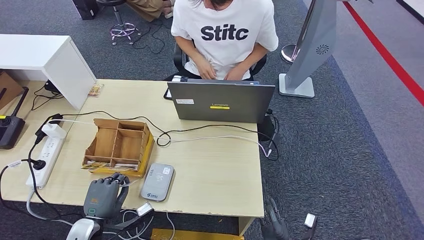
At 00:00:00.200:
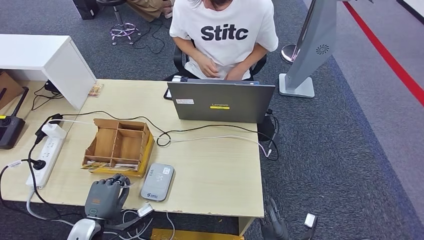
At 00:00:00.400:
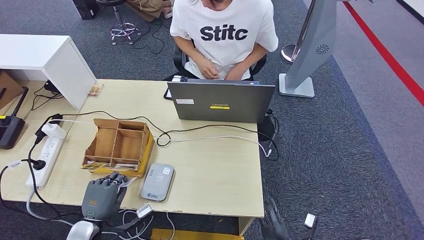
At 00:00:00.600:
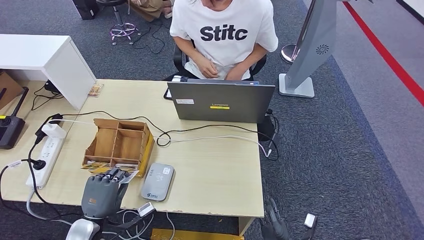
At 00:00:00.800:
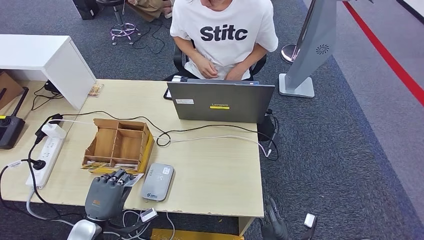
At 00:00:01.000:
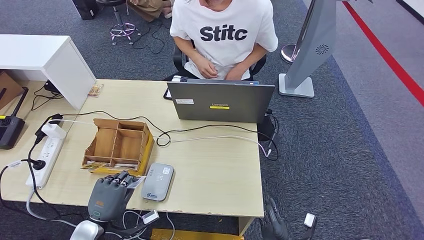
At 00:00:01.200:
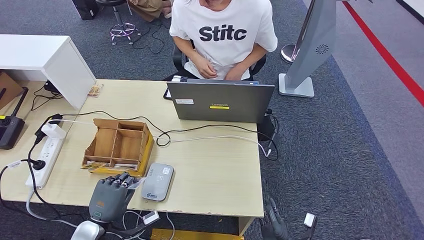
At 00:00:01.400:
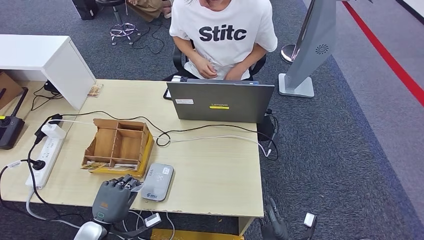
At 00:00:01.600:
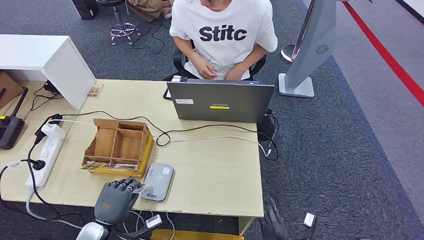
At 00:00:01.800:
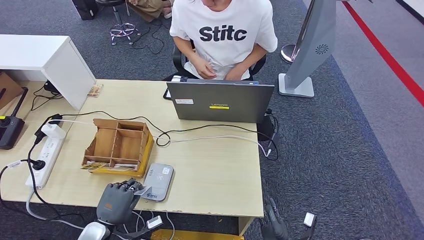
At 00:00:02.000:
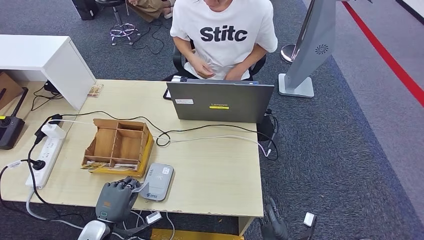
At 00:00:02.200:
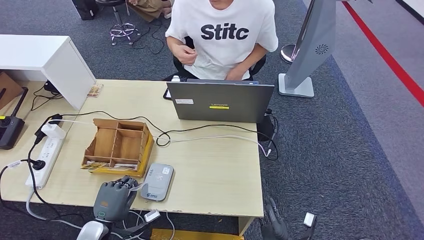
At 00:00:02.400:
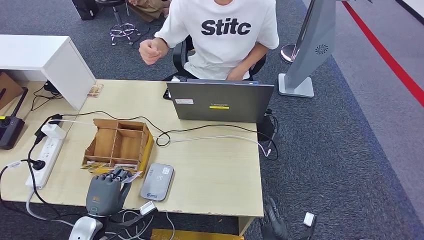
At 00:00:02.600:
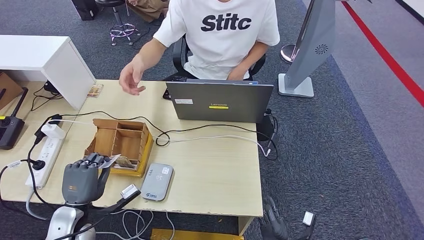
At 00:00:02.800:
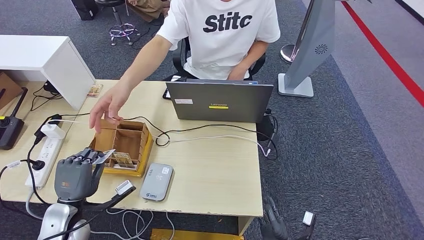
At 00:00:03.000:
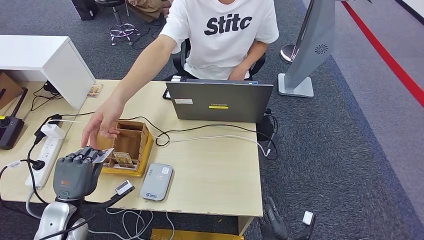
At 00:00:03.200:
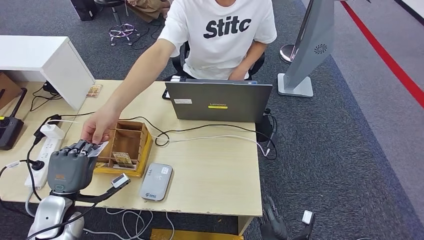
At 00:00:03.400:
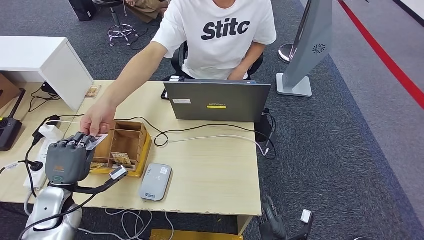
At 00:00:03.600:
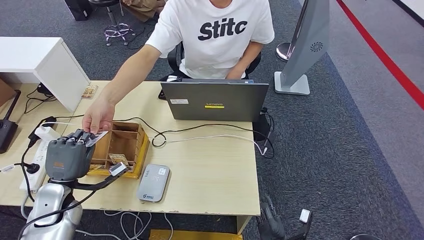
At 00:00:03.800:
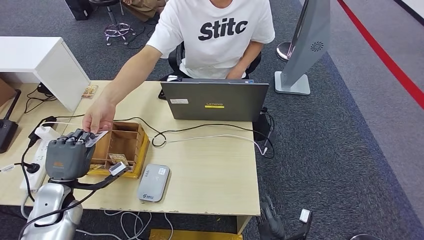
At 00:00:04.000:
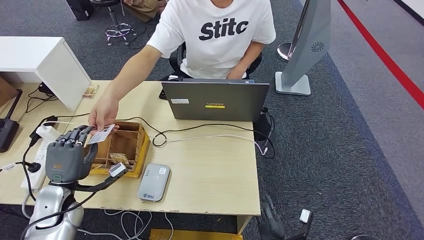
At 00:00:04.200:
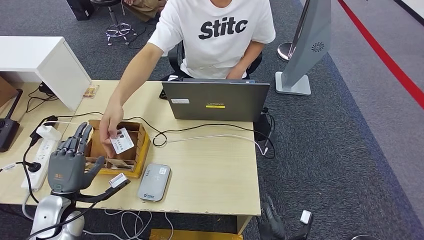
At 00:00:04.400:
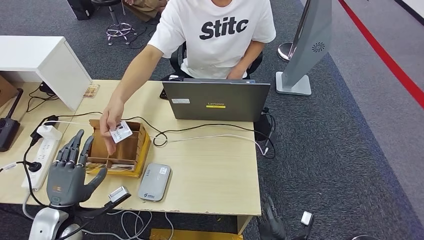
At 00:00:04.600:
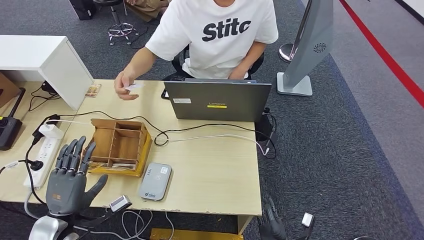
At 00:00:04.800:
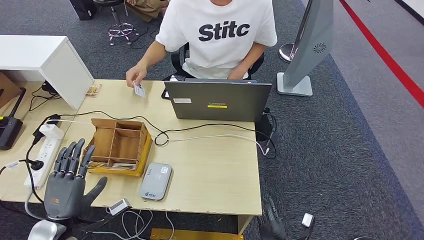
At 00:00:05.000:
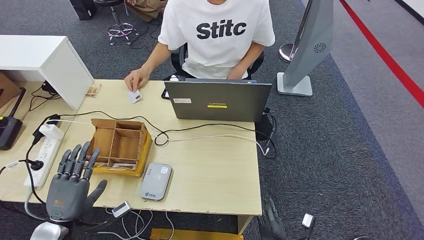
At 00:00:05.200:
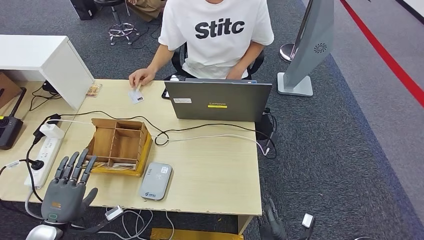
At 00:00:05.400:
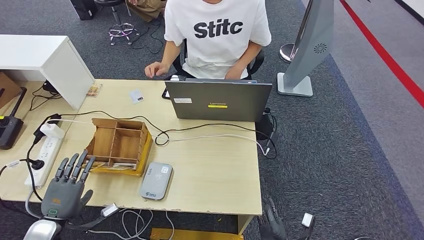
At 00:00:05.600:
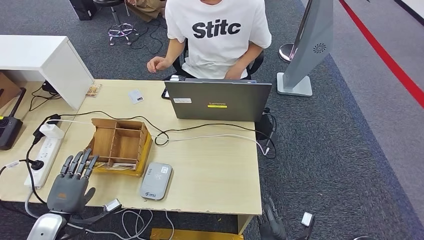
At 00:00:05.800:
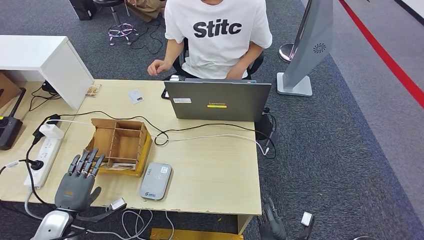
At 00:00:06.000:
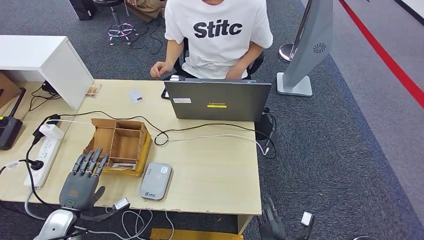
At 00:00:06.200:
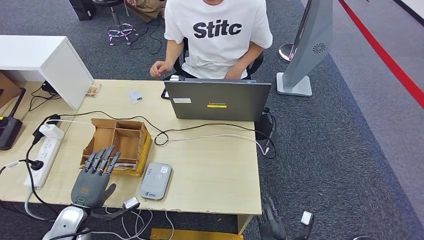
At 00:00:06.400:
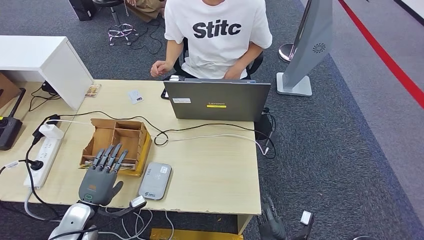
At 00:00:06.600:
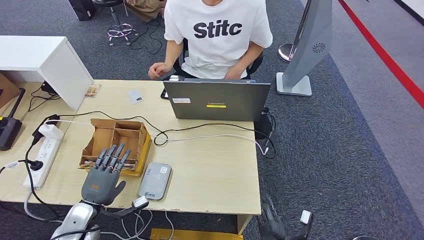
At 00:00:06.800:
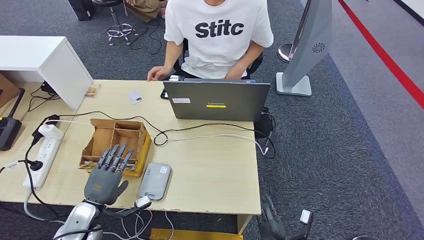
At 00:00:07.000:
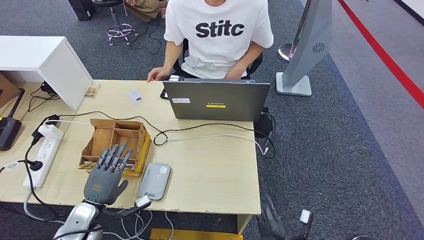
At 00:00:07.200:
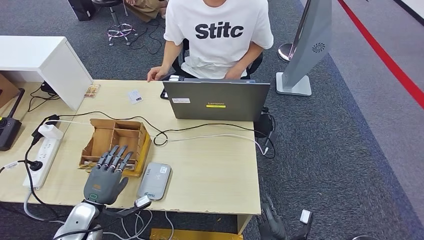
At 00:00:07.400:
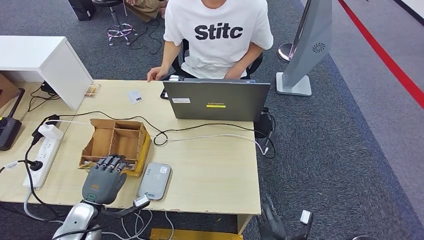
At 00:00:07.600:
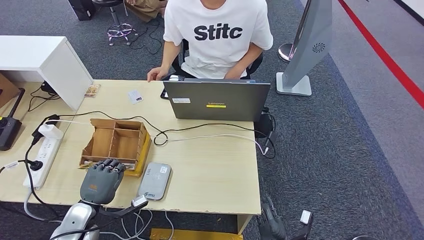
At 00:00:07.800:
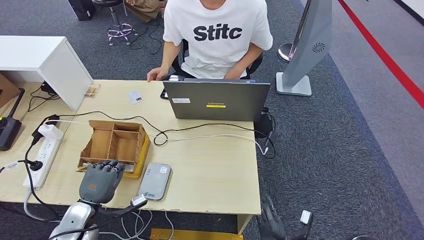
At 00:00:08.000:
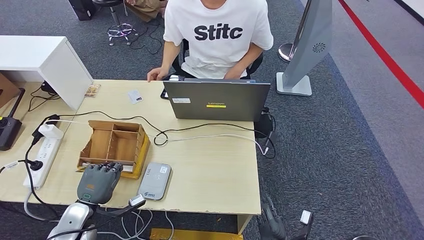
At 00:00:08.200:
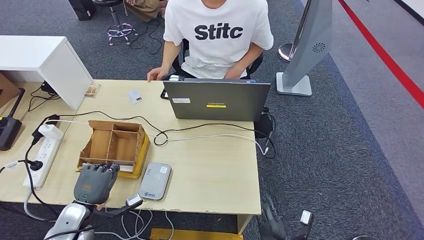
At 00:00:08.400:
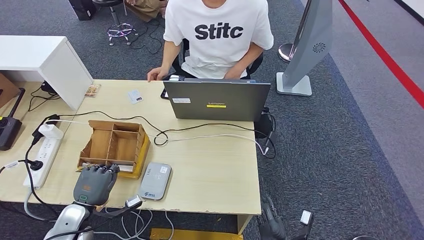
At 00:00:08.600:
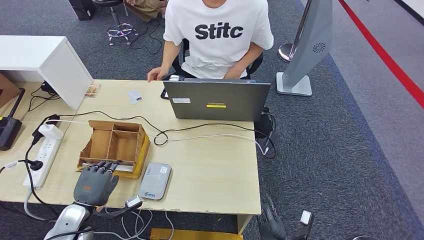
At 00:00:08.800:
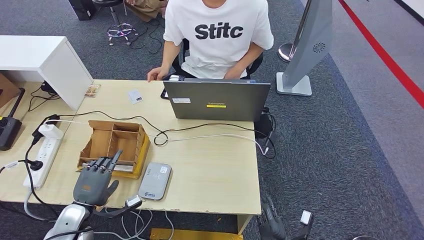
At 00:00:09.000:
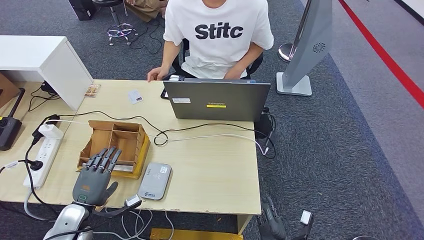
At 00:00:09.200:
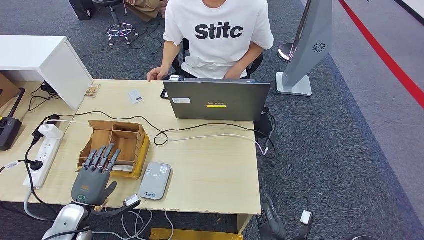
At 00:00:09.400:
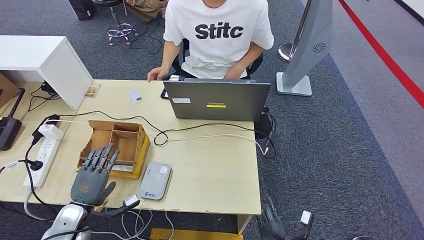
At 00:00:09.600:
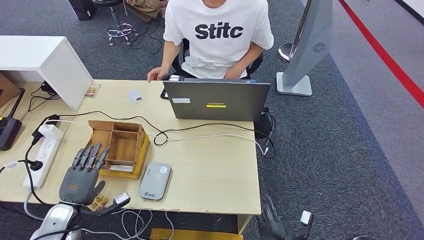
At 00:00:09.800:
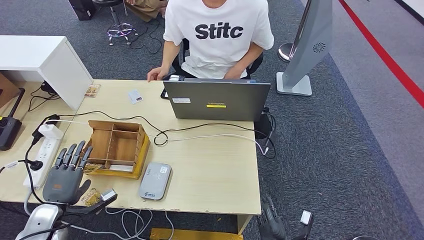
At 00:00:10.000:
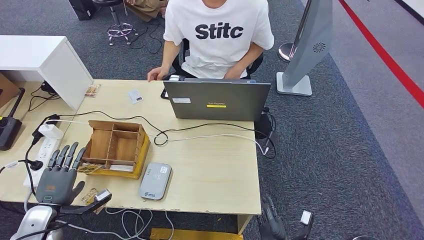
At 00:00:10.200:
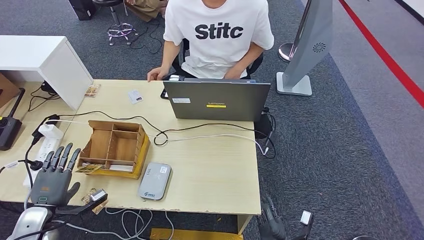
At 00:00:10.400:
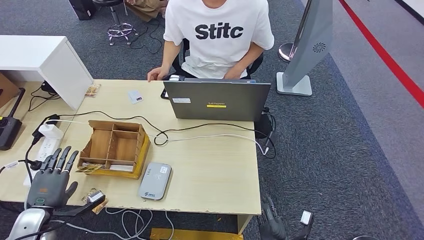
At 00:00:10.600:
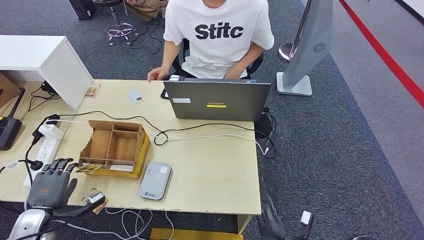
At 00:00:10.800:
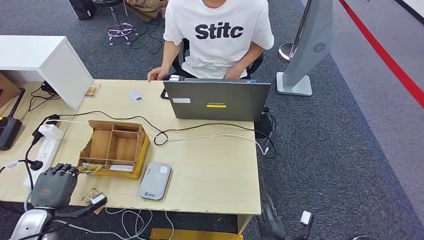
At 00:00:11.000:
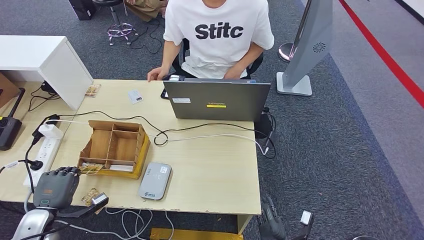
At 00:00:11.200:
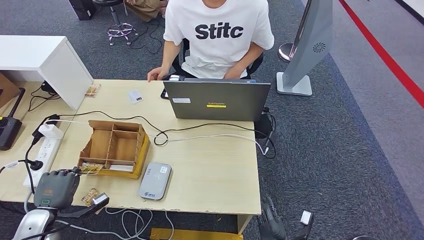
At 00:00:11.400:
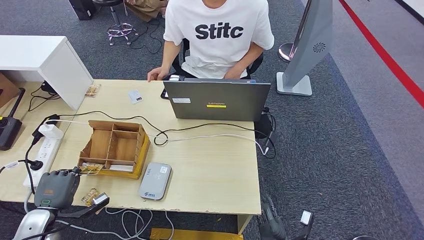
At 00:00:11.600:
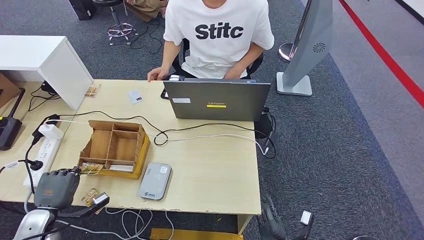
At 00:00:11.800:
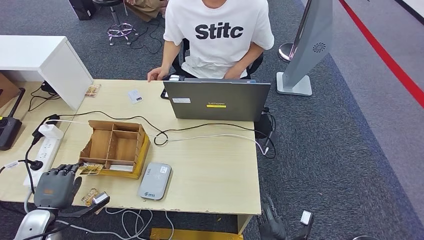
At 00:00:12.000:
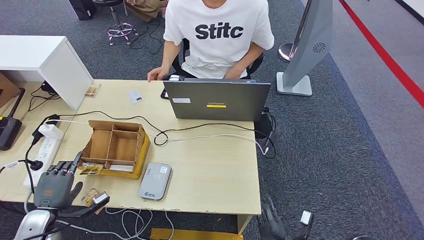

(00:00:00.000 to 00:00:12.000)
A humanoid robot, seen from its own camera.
Step, 00:00:00.000 - 00:00:01.800: Place the ID card on the card reader.
Step, 00:00:02.200 - 00:00:04.200: Hand the ID card to the person.
00:00:00.000 - 00:00:01.600: The hands stay close to where they were, moving slightly.
00:00:01.600 - 00:00:03.000: The left hand travels upward, to the left and forward by approximately 10 cm.
00:00:03.000 - 00:00:04.400: There are only small adjustments of the hands.
00:00:04.400 - 00:00:06.000: The left hand shifts about 5 cm downward.
00:00:06.000 - 00:00:07.600: The left hand heads to the right, covering some 5 cm.
00:00:07.600 - 00:00:09.000: The hands stay close to where they were, moving slightly.
00:00:09.000 - 00:00:10.400: The left hand shifts about 10 cm to the left.
00:00:10.400 - 00:00:12.000: Both hands stay about where they are.

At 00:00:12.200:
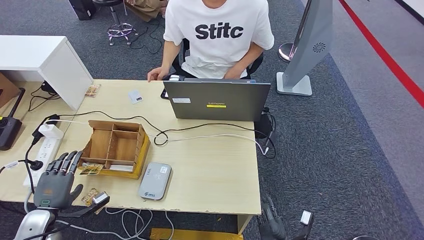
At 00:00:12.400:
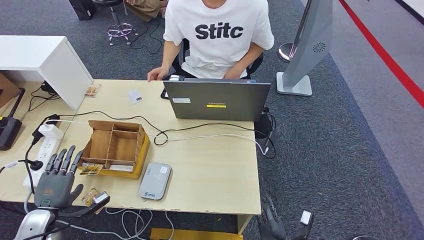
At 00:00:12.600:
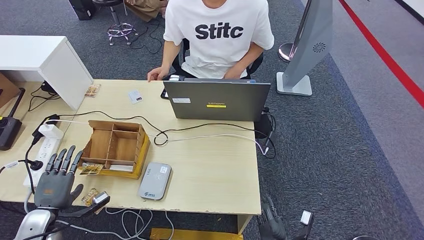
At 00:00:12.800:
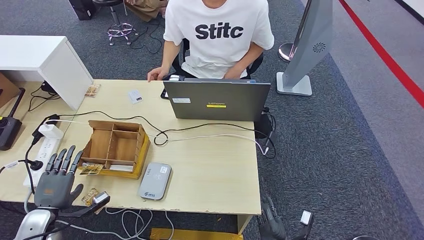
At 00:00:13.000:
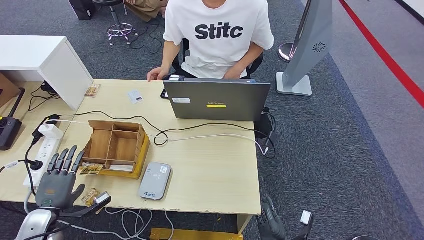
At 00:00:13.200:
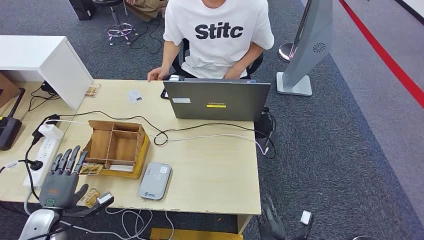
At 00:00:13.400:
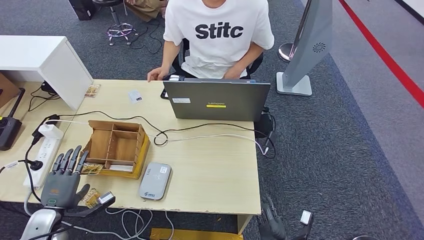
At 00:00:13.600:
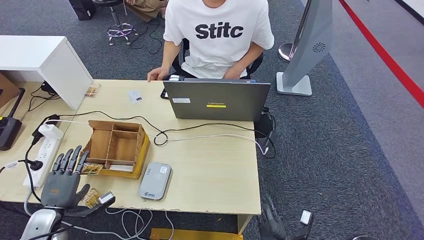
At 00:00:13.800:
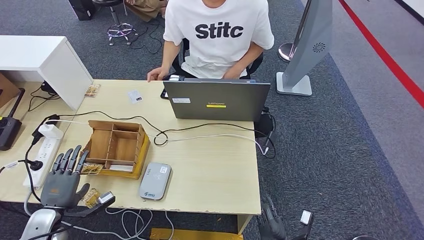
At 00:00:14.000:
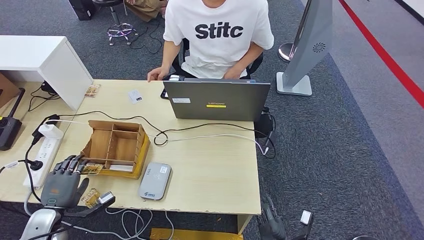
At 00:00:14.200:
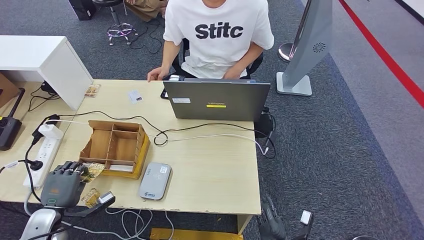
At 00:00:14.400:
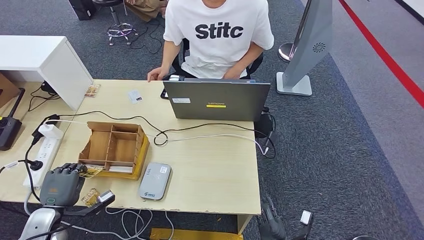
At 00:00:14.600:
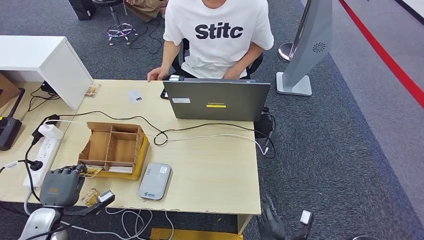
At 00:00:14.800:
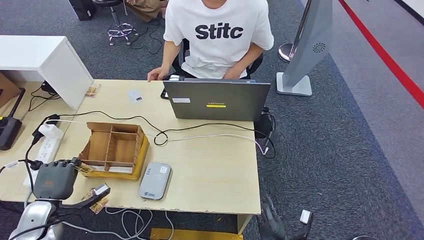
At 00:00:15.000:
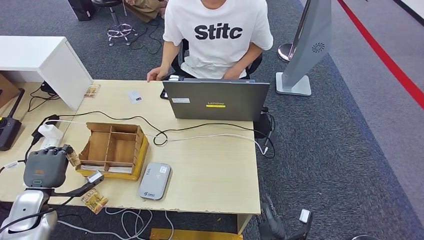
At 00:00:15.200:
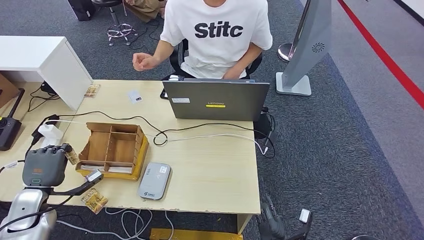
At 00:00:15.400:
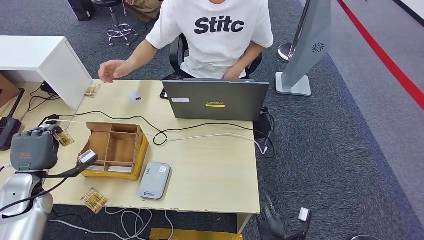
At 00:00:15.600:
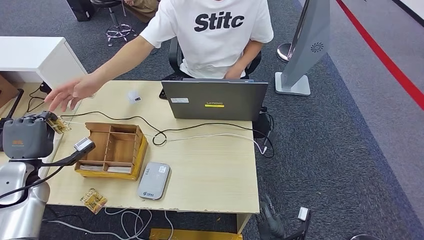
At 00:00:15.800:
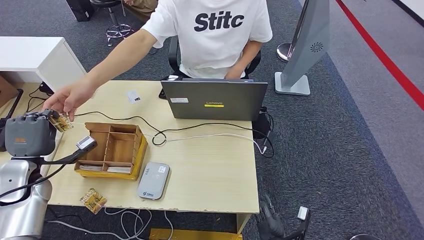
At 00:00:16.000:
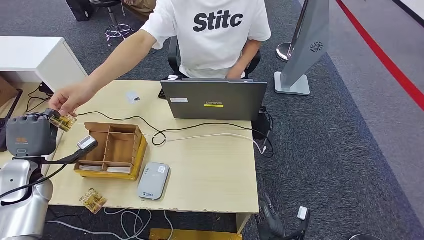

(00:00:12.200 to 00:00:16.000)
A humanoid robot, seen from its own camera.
Step, 00:00:12.200 - 00:00:15.200: Pick up the room key from the key card box.
Step, 00:00:15.400 - 00:00:15.800: Hand the room key to the person.
00:00:12.200 - 00:00:14.800: The hands make only small movements.
